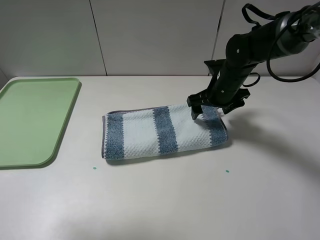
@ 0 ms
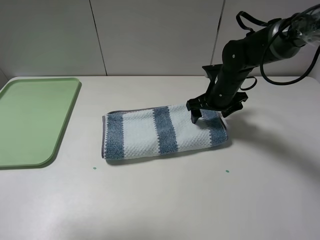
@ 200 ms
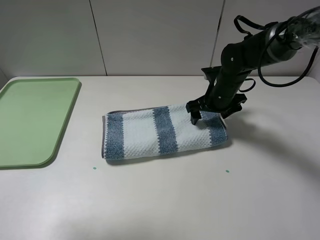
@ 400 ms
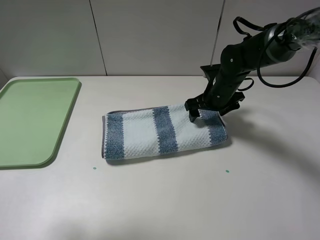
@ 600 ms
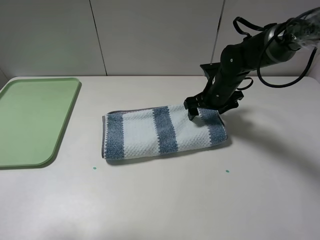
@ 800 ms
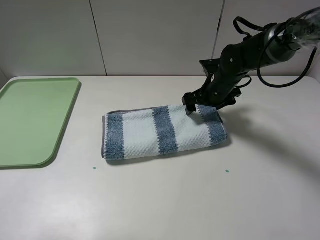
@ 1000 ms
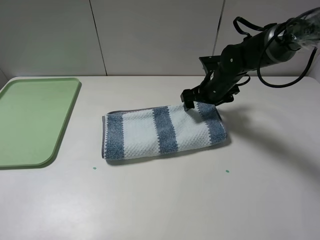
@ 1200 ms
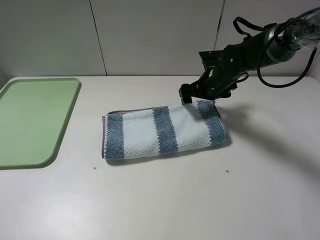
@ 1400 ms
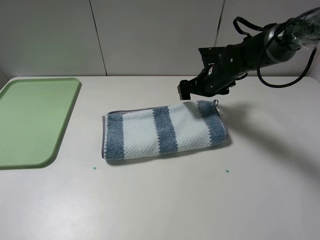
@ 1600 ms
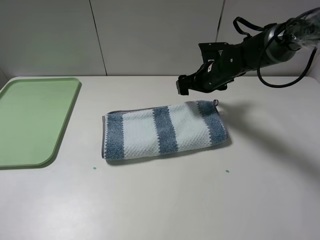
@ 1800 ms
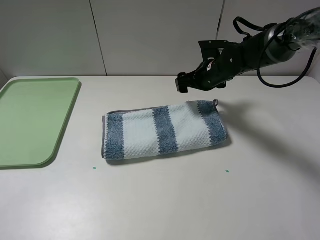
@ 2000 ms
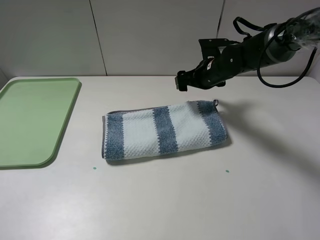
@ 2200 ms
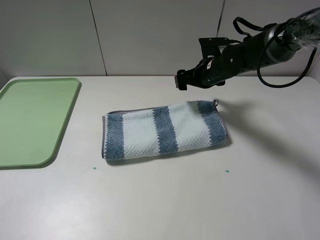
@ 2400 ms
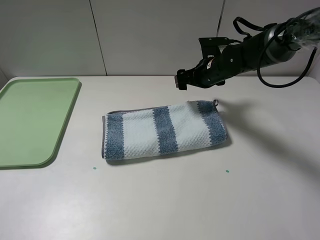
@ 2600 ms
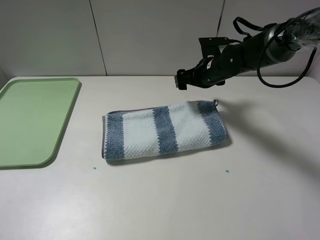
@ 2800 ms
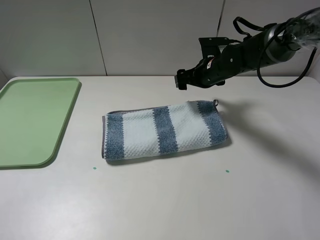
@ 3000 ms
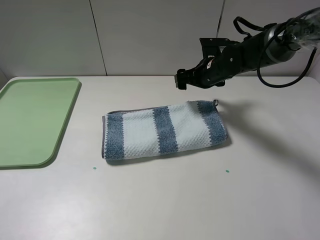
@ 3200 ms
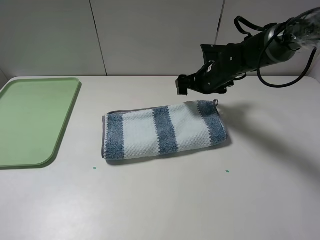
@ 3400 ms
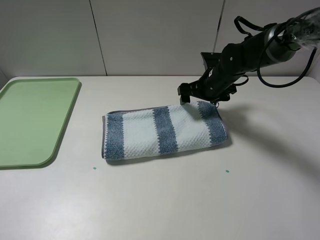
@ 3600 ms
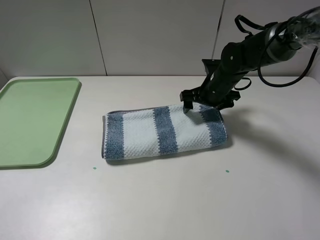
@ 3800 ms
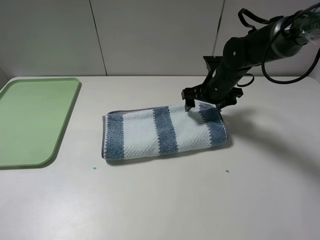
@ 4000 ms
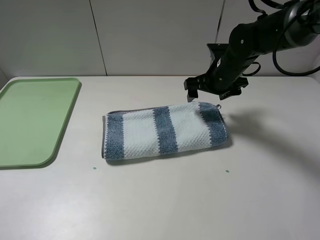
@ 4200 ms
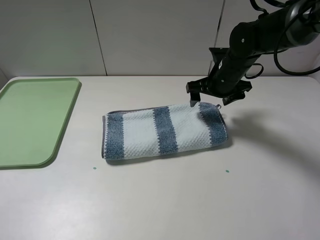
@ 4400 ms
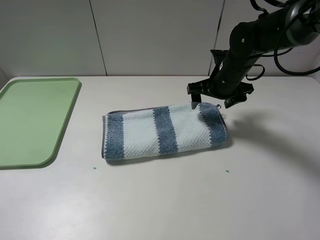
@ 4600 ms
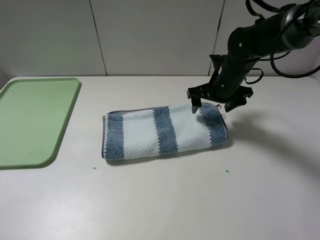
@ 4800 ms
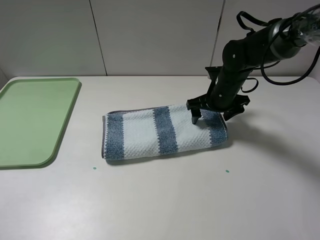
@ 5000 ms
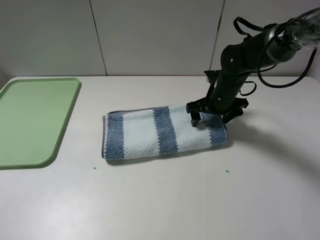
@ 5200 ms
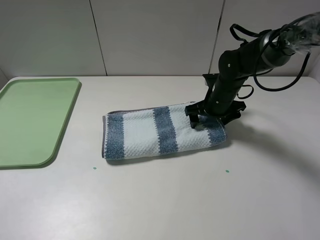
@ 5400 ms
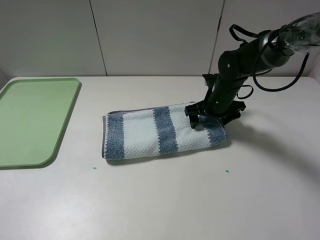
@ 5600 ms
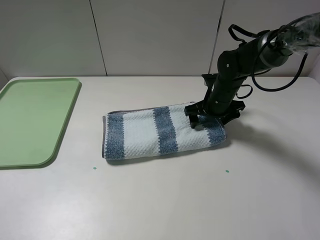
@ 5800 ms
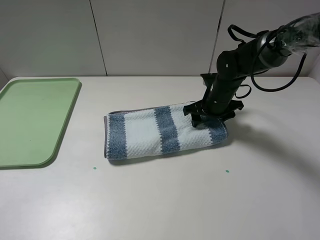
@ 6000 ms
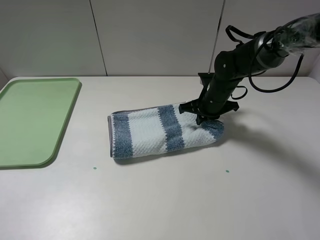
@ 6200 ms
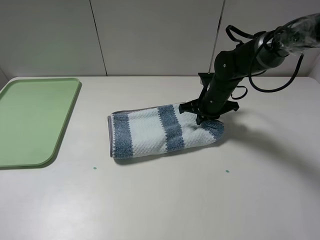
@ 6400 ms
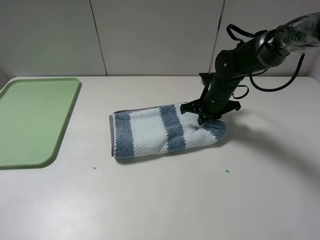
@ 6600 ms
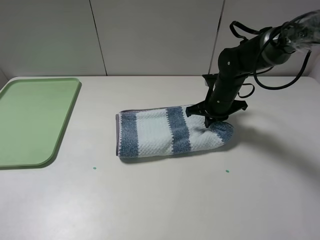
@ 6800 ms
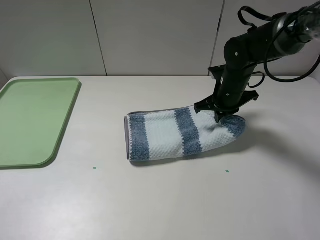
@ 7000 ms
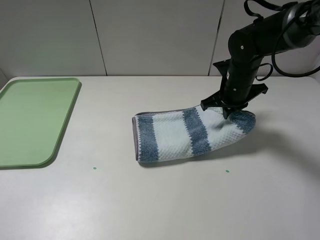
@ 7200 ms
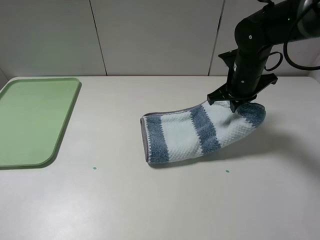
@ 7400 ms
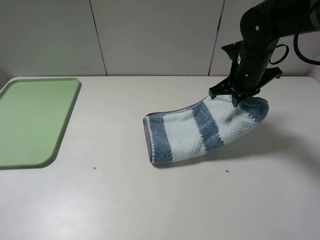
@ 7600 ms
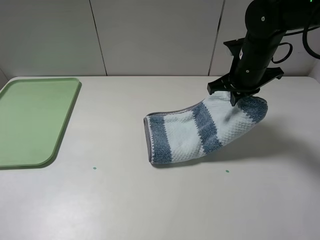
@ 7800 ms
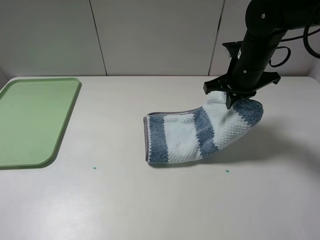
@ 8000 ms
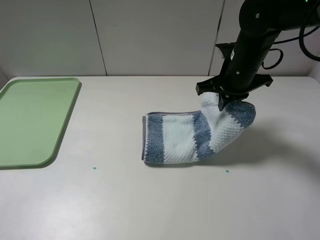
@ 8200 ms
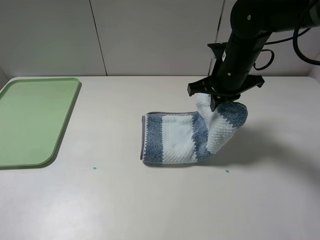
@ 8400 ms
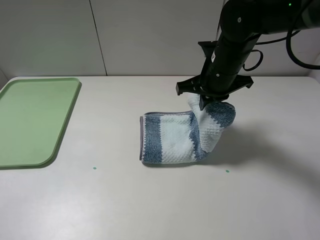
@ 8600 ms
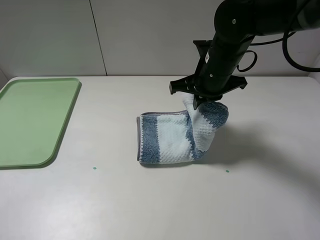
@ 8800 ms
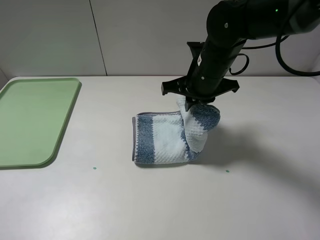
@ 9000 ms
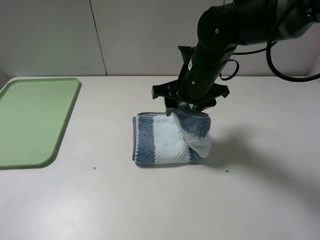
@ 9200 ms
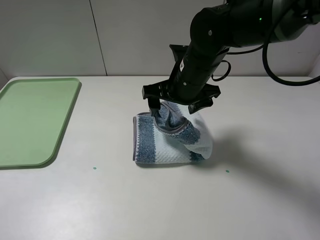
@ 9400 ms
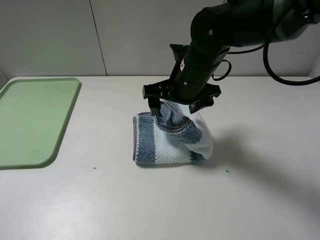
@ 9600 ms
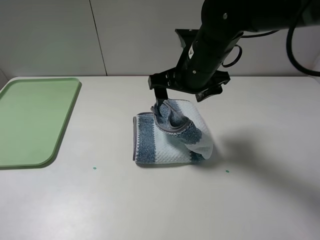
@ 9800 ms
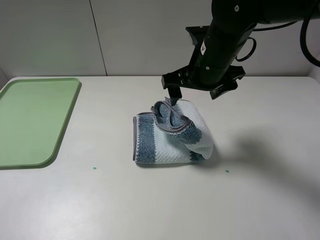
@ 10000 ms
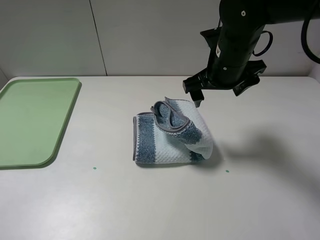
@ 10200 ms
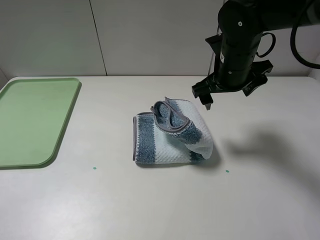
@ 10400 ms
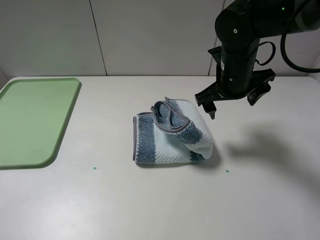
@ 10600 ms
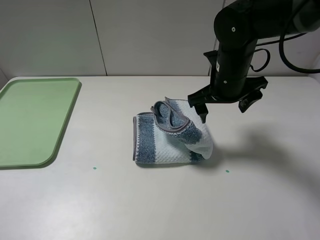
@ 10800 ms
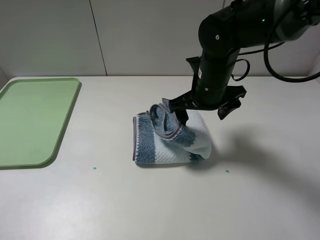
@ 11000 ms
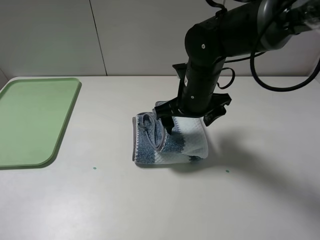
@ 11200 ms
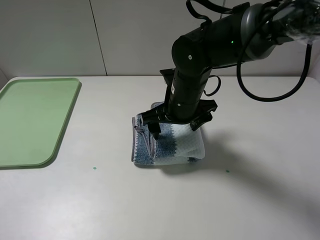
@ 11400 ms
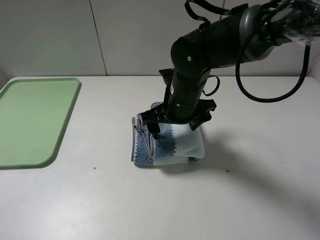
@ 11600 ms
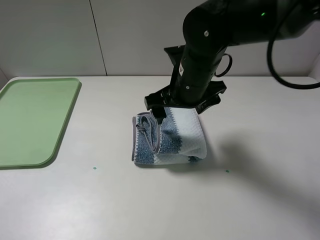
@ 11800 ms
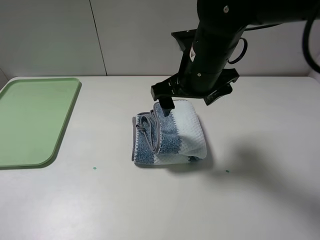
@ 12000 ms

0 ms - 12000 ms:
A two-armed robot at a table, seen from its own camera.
Step, 0 ms - 6200 ms: Grasp the blue white towel with the right gripper.
Step, 6400 ms - 12000 ms: Fold the blue white towel from right to left with right gripper.
0 ms - 1600 ms: The left gripper travels backward and downward by some 10 cm.
1600 ms - 3000 ms: The left gripper shifts approximately 5 cm downward.
4400 ms - 6000 ms: The right gripper is displaced downward by approximately 5 cm.
6000 ms - 7600 ms: The right gripper heads upward, covering some 10 cm, and closes its fingers.
7600 ms - 9000 ms: The right gripper travels to the left by some 10 cm.
9000 ms - 10400 ms: The right gripper opens up.
10400 ms - 12000 ms: The right gripper travels to the left and backward by some 10 cm.

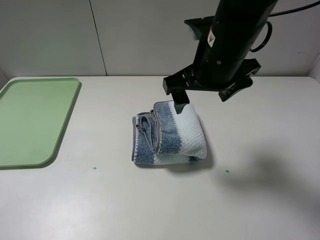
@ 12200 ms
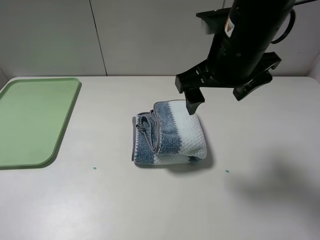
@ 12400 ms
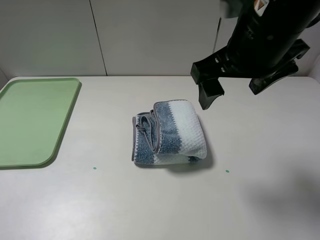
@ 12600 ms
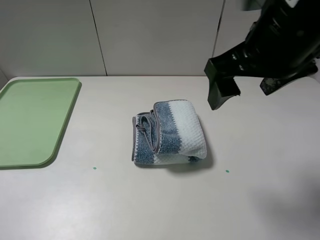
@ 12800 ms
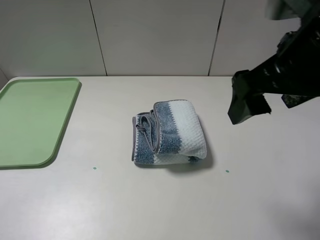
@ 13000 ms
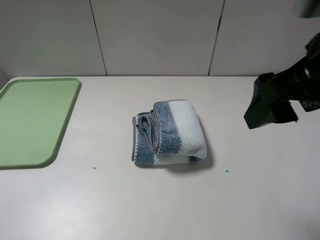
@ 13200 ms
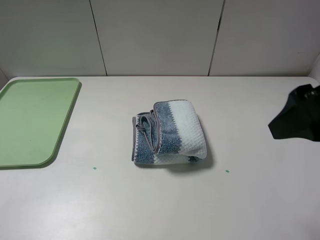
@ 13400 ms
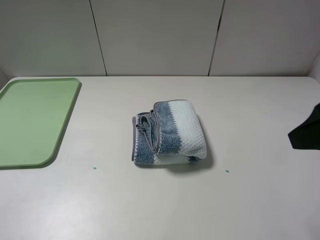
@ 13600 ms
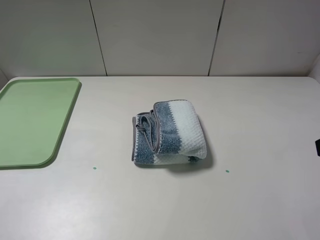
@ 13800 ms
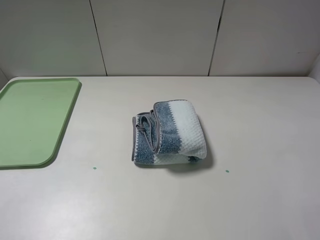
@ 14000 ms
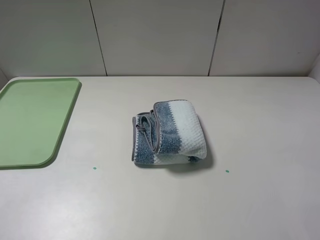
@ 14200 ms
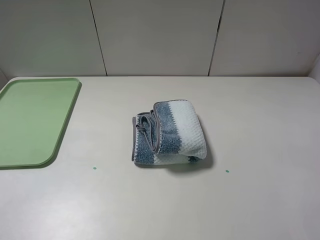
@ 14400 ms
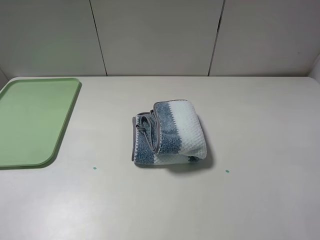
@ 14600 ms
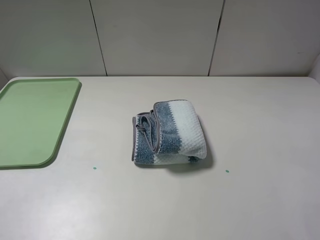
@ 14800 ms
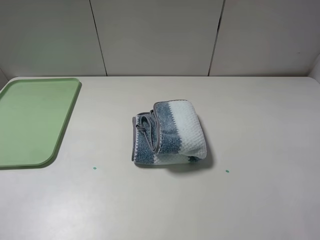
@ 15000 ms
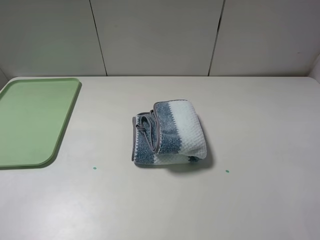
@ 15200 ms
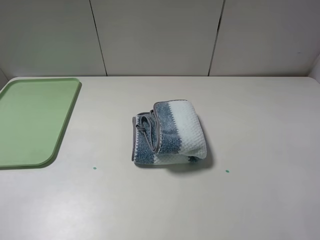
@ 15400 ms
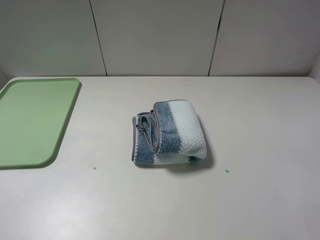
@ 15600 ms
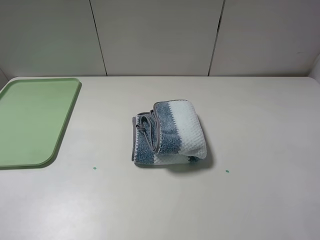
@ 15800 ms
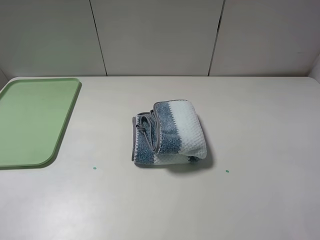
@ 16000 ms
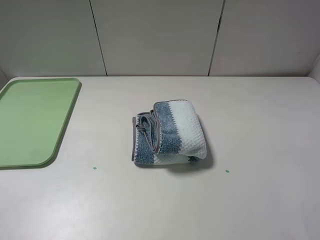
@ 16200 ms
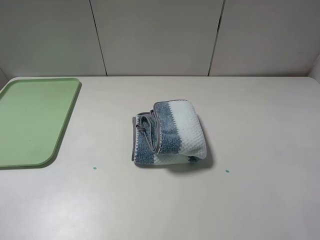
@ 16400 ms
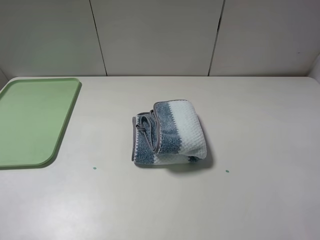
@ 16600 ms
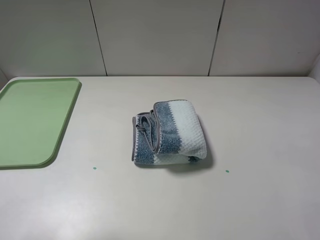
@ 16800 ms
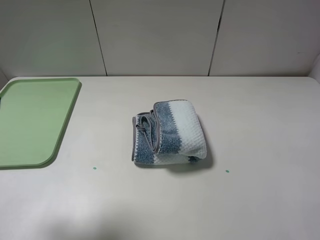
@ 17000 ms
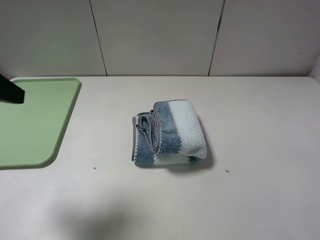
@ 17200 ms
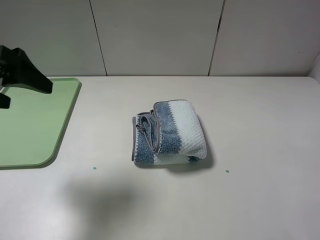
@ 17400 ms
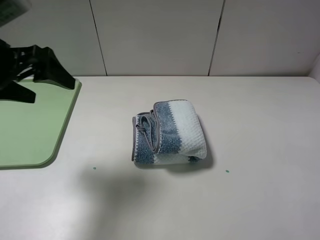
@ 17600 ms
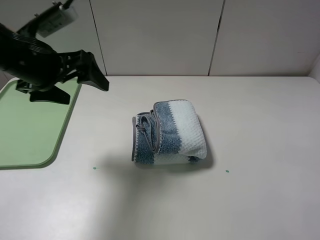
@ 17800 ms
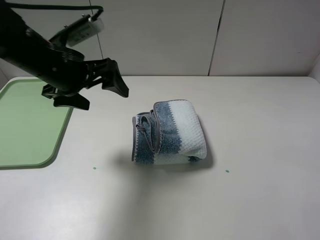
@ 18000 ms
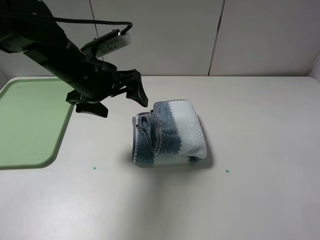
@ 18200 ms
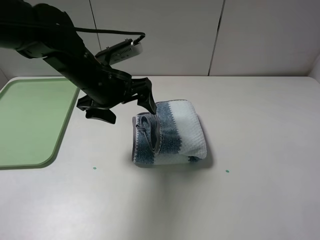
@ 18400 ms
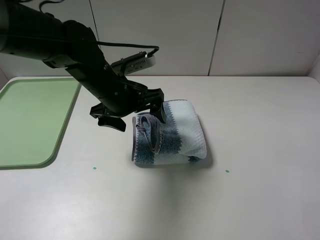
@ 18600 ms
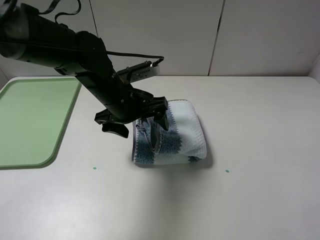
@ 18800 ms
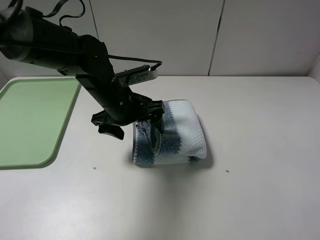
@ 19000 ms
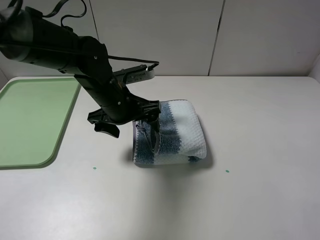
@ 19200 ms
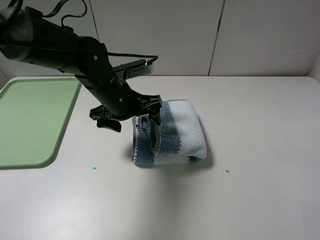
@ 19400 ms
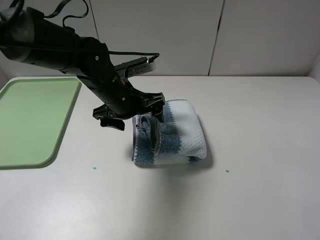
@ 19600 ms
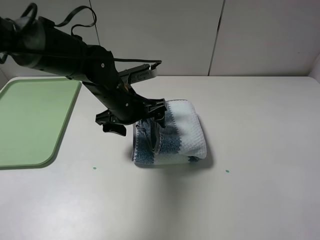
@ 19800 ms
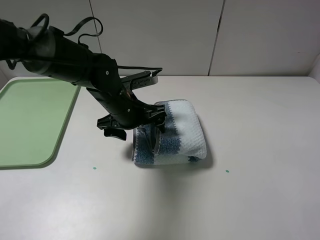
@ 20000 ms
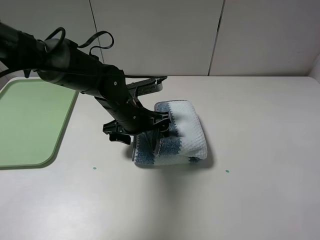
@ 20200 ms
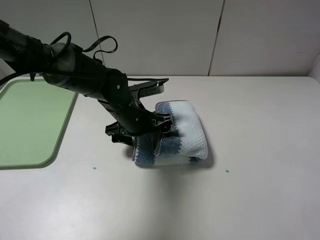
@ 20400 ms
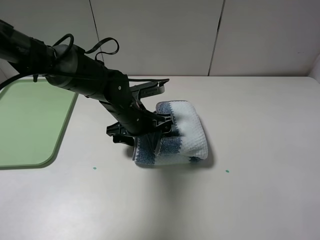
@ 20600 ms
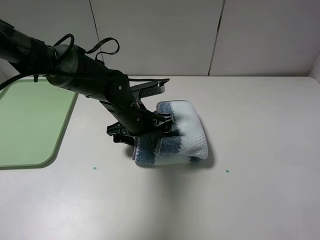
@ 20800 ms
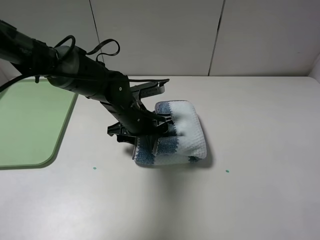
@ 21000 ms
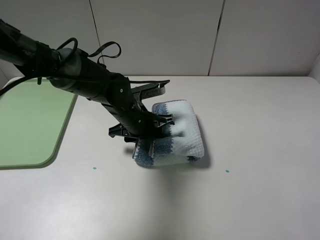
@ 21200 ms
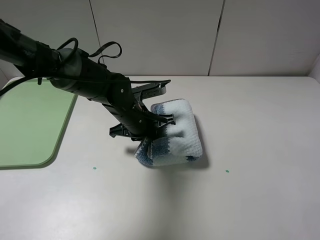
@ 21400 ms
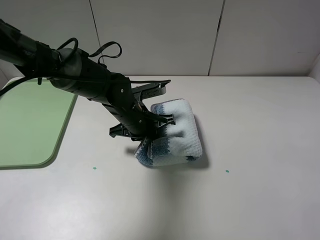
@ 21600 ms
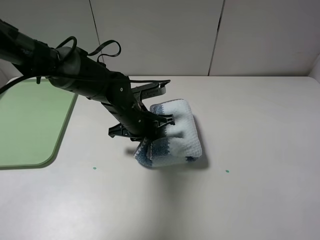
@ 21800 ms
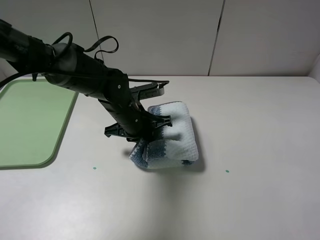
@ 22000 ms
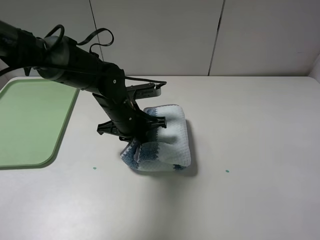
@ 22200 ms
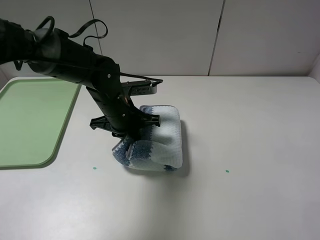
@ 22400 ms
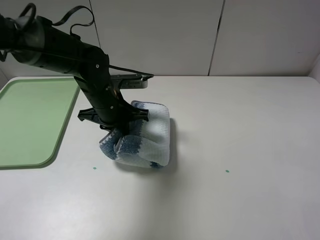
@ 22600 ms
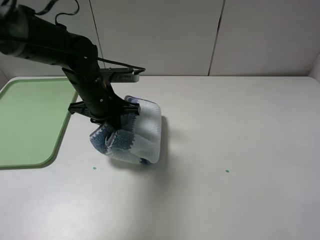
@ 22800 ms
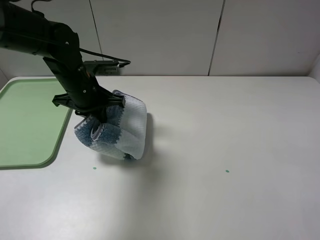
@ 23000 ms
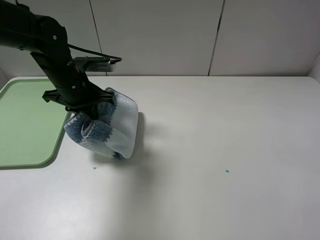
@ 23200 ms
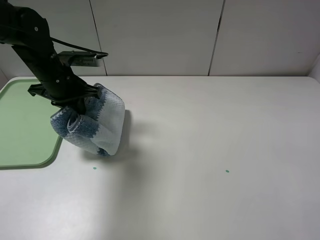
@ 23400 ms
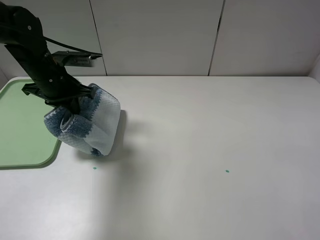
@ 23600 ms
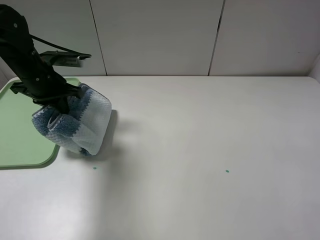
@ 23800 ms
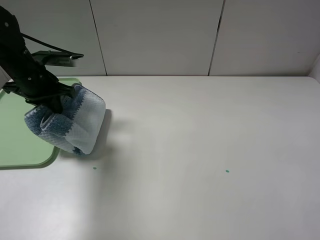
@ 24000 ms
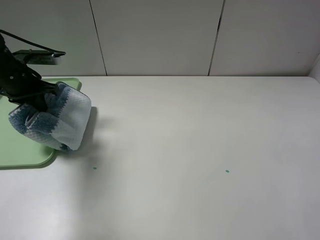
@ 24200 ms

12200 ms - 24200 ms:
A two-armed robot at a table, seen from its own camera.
Step, 12200 ms - 21400 ms: Grasp the blue white towel with the left gripper.
12200 ms - 13800 ms: The right gripper shifts approximately 25 cm to the right and backward.
16600 ms - 18200 ms: The left gripper shifts about 30 cm forward and to the right.
18200 ms - 19800 ms: The left gripper shifts approximately 10 cm downward and to the right.
19800 ms - 21200 ms: The left gripper heads downward, covering roughly 5 cm, and closes its fingers.
21200 ms - 22600 ms: The left gripper changes place by about 5 cm.
22600 ms - 24200 ms: The left gripper moves to the left, roughly 20 cm.
